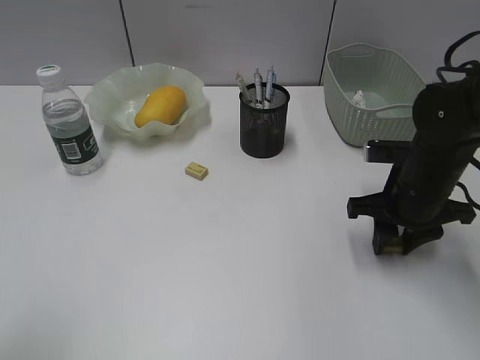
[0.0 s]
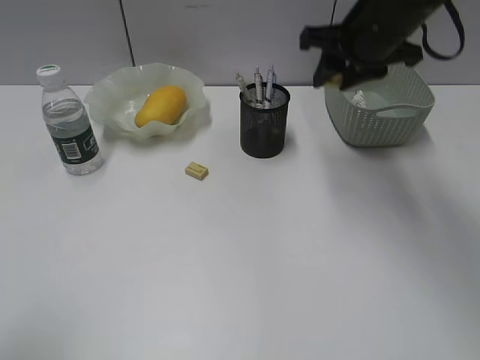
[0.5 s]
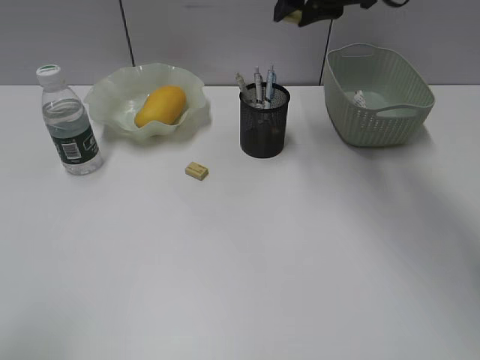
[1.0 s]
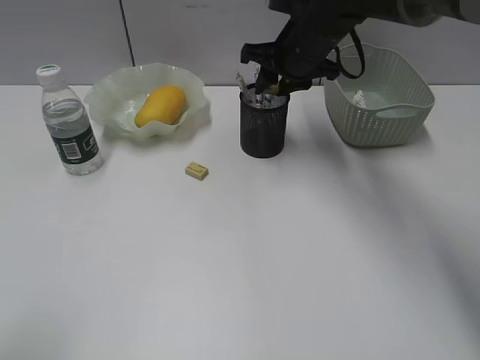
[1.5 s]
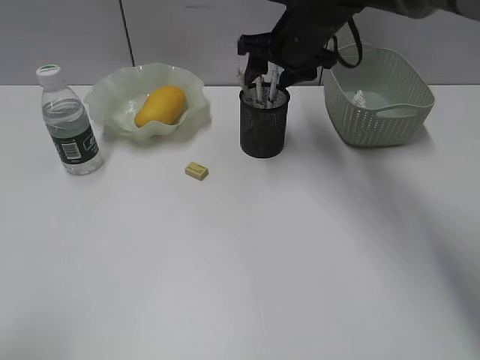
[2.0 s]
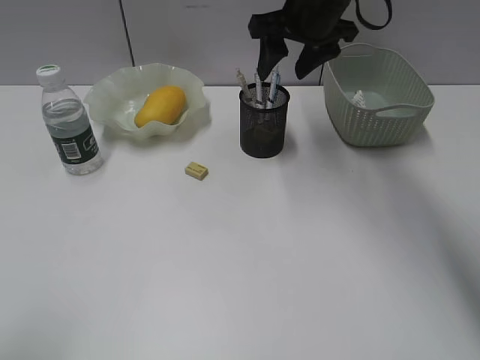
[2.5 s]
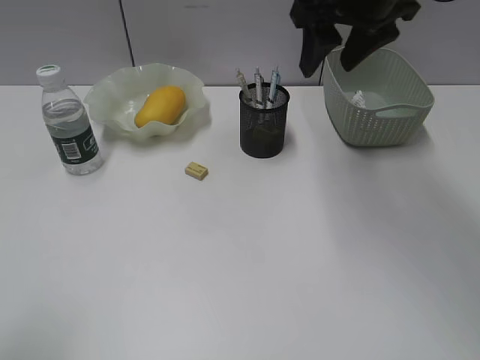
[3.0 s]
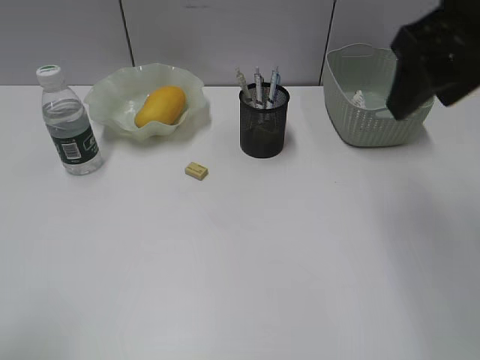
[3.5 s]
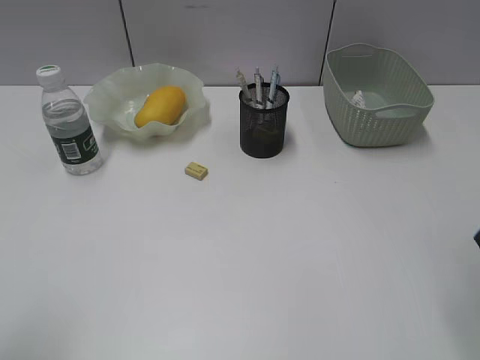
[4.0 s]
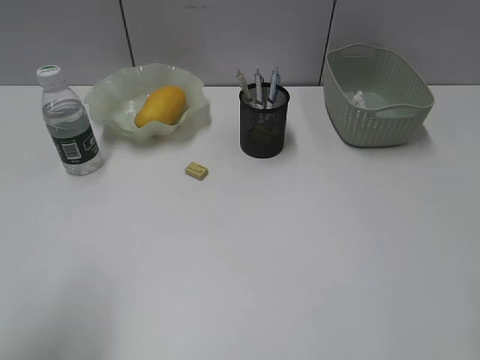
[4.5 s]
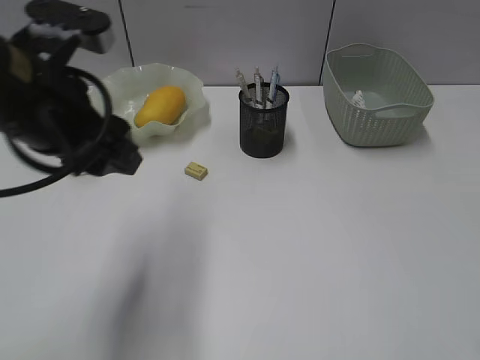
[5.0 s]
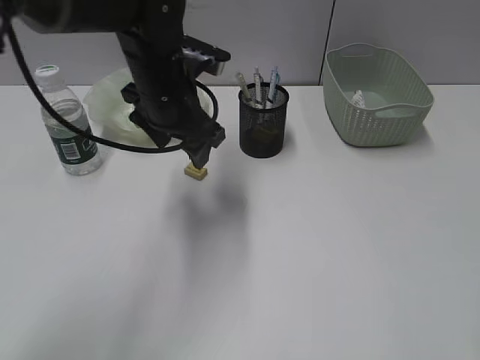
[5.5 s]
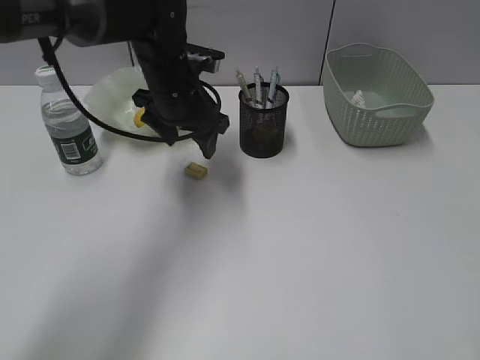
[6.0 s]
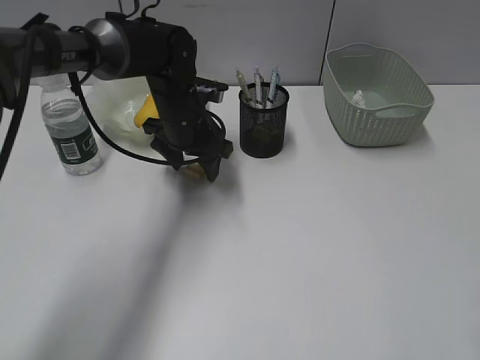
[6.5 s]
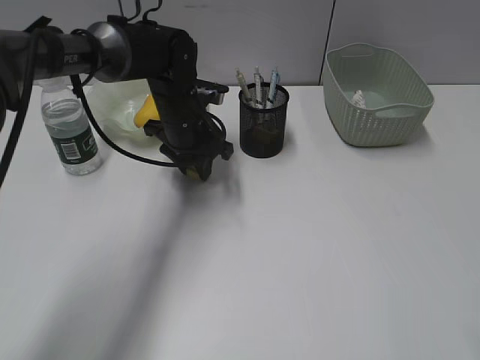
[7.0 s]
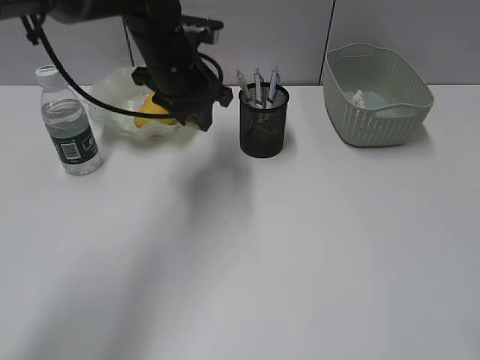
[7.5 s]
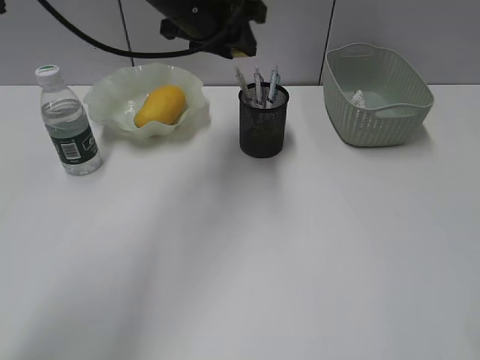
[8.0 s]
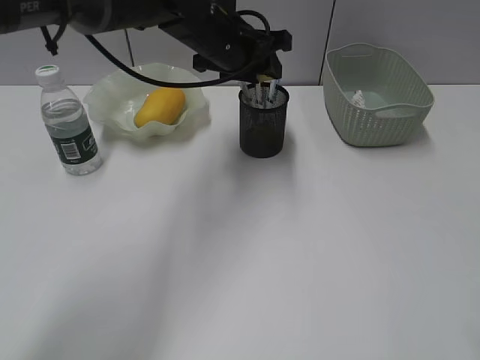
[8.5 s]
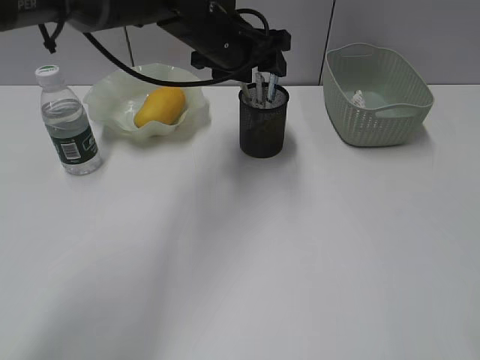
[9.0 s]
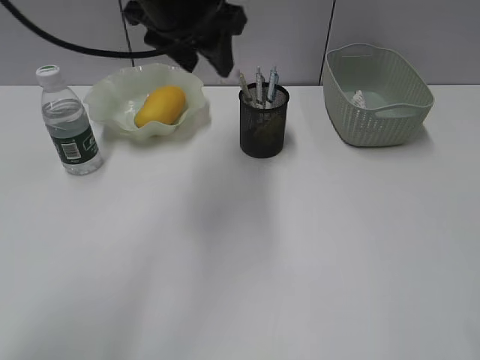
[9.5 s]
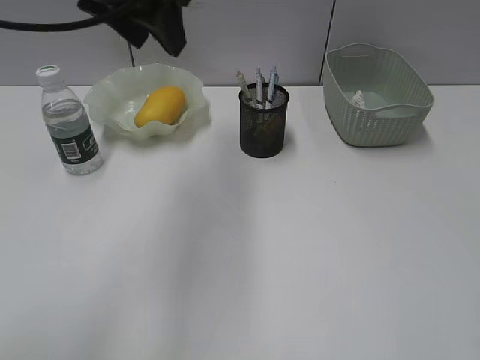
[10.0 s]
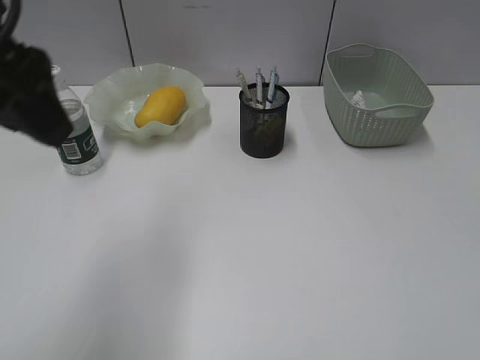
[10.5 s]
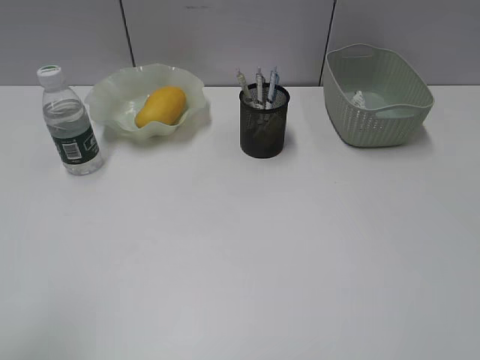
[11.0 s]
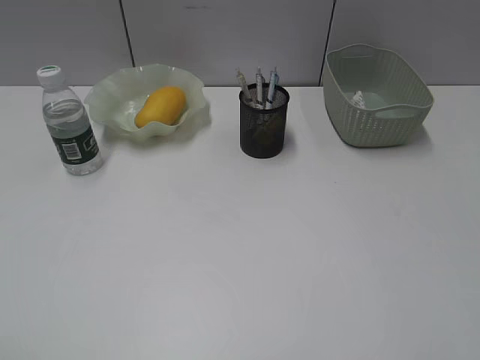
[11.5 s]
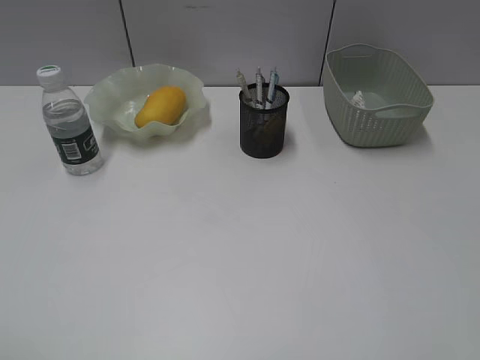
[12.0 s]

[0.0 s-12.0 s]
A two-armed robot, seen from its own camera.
Step, 0.0 to 1.5 s: Place the eraser in pen holder with right gripper.
Step, 2.0 to 7.0 s: Grasp the eraser with left gripper.
Step, 7.5 to 8.5 s: Place the eraser in pen holder with left gripper.
0.0 to 2.0 s: The right gripper moves forward, to the left and upward, roughly 25 cm, and opens its fingers.
2.0 to 4.0 s: The right gripper is displaced backward and to the right by about 35 cm.
4.0 to 6.0 s: The left gripper is displaced forward and to the right by approximately 40 cm, and opens; the right gripper heads backward, covering some 10 cm.
6.0 to 8.0 s: The left gripper goes about 10 cm upward, and closes.
8.0 to 10.0 s: The left gripper goes approximately 15 cm backward, upward and to the left.
10.0 to 12.0 s: The left gripper goes approximately 40 cm backward and to the left.
